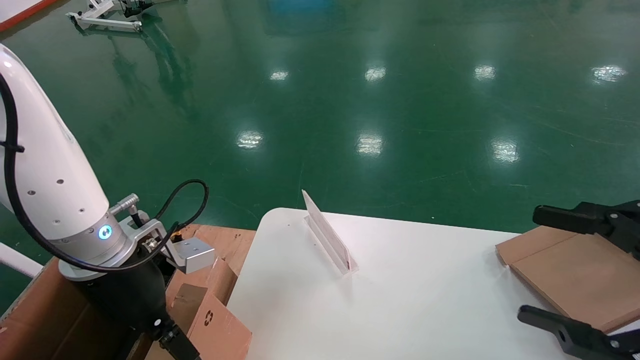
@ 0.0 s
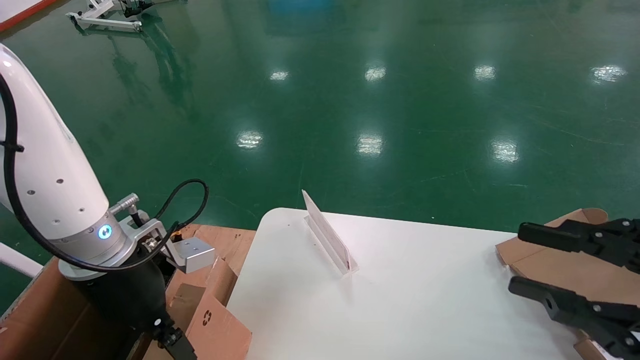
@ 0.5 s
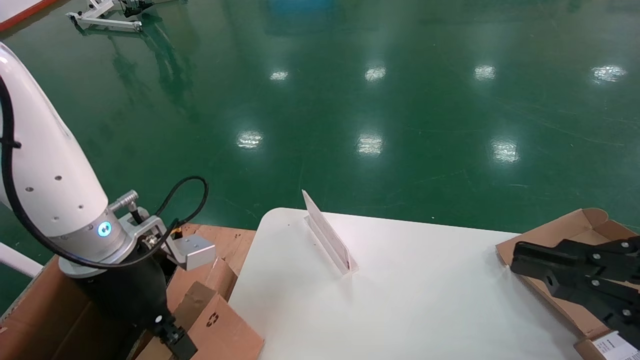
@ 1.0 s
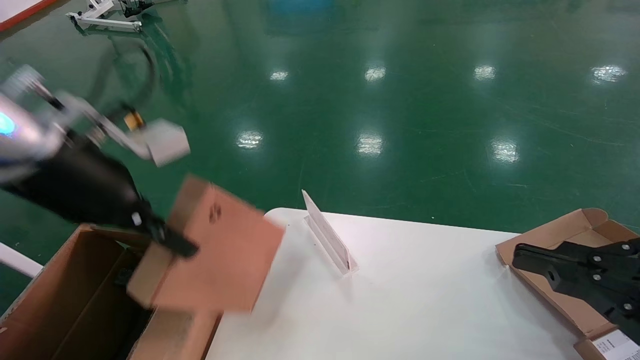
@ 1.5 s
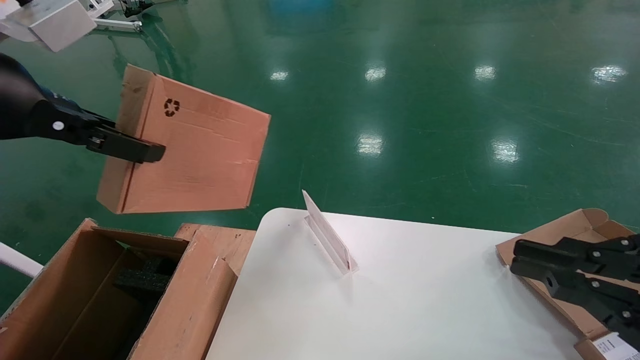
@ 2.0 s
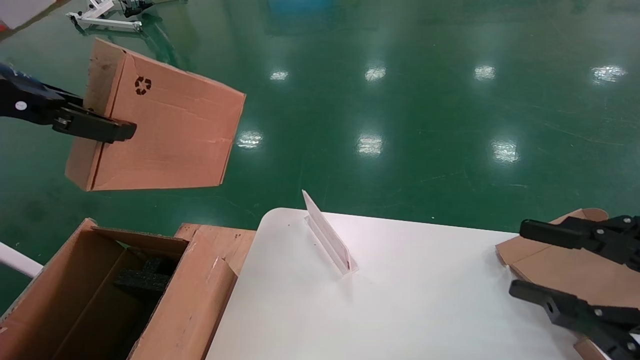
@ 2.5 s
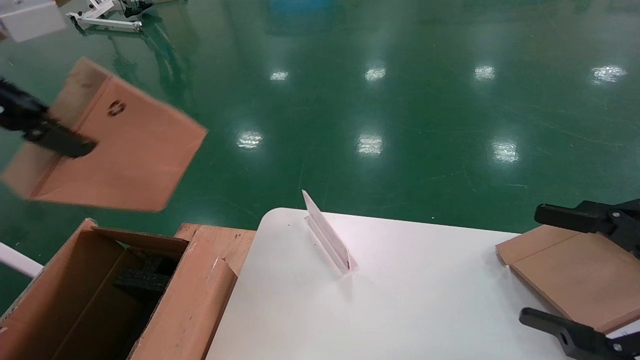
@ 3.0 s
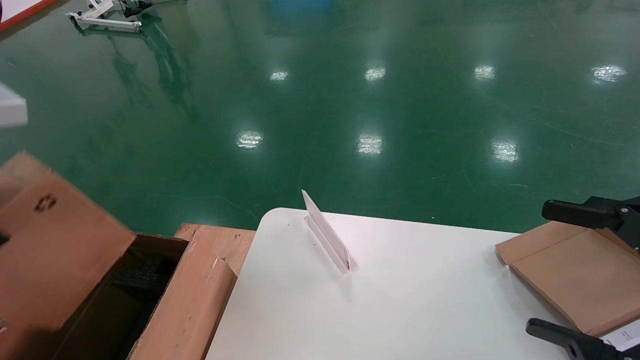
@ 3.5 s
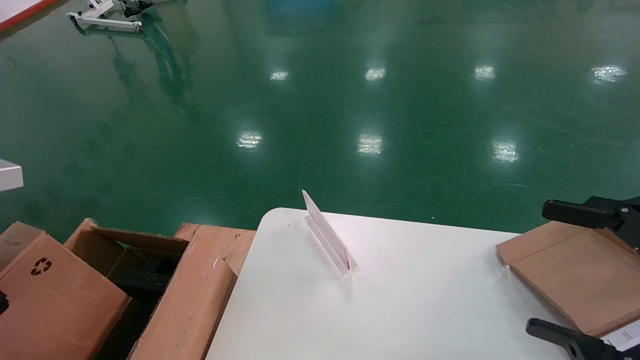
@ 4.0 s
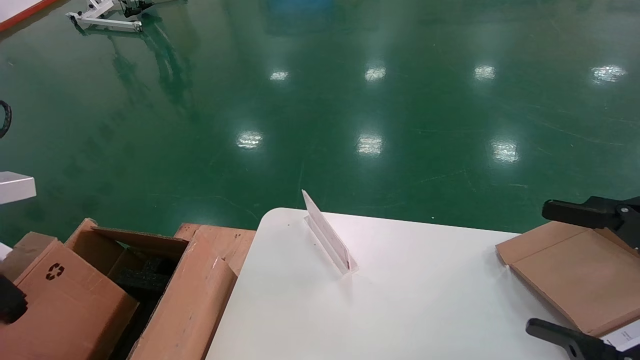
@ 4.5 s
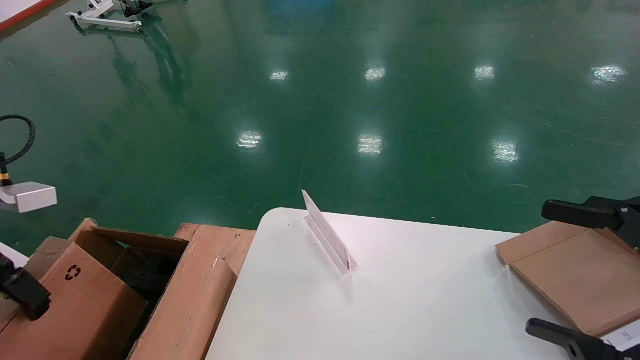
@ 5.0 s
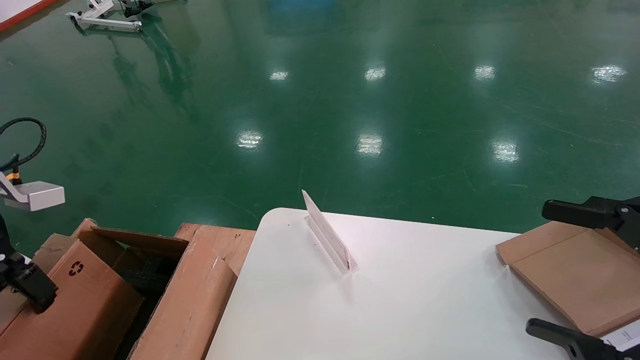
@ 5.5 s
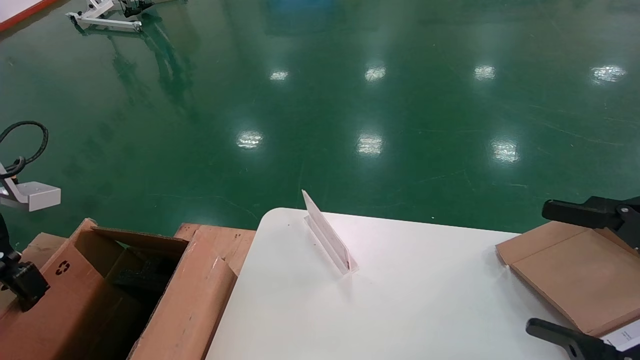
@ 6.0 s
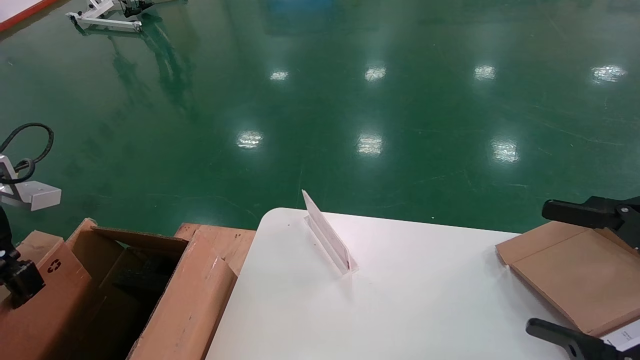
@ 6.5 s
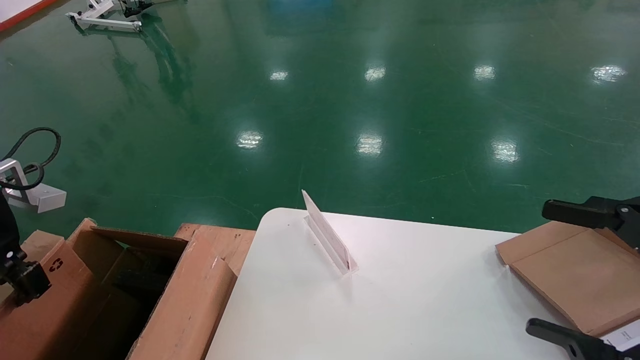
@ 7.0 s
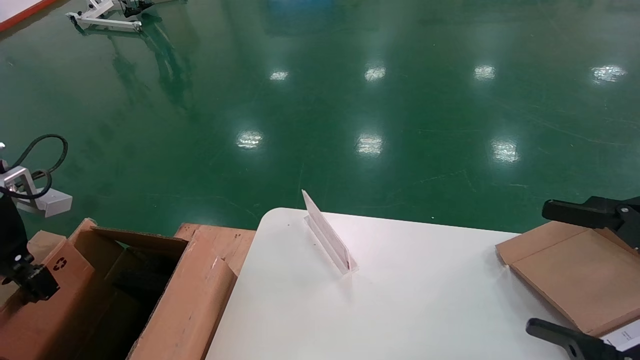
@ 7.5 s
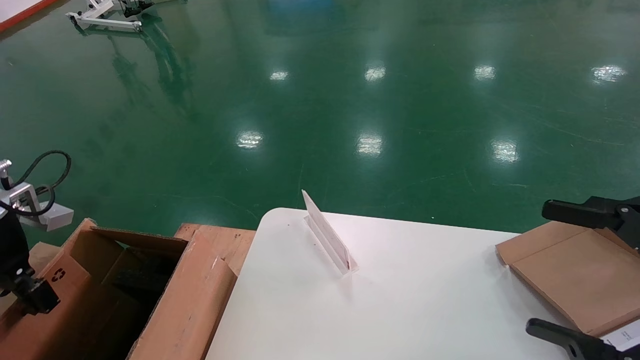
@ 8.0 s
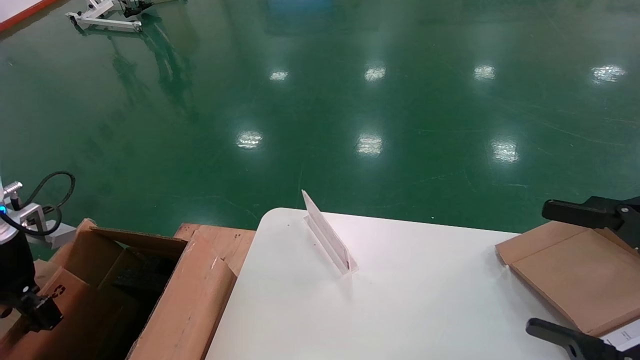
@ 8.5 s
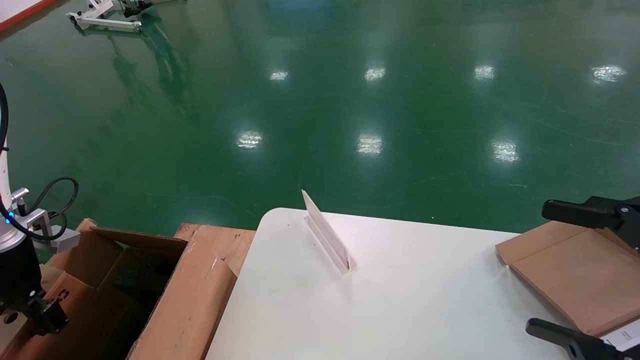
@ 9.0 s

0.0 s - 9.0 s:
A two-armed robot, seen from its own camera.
Task of the whole recording: pick up the small cardboard box and load it into the large cardboard box.
Step, 0.0 s - 4.5 s: Pick up the mouse and power cord box.
0.0 s - 2.0 s: The left gripper is displaced upward by about 20 cm, and closes its fingers, while the right gripper closes its fingers.
2.0 s - 4.5 s: The right gripper opens its fingers; the left gripper is displaced to the left and downward by some 15 cm.
4.5 s - 7.0 s: The left gripper moves forward and downward, roughly 10 cm.
7.0 s - 9.0 s: The left gripper moves downward, roughly 10 cm.

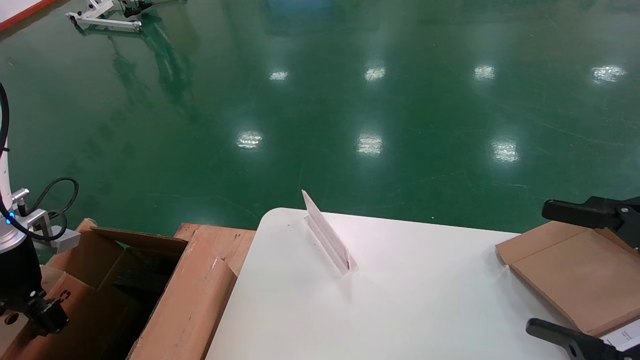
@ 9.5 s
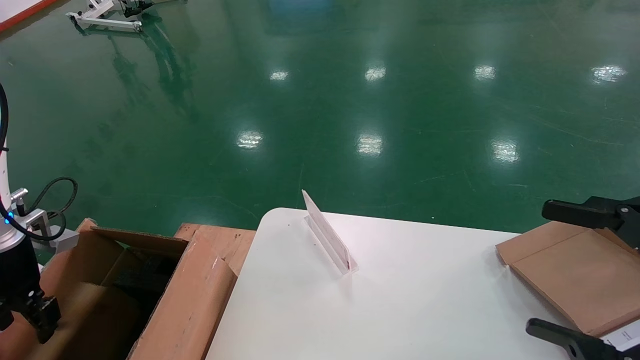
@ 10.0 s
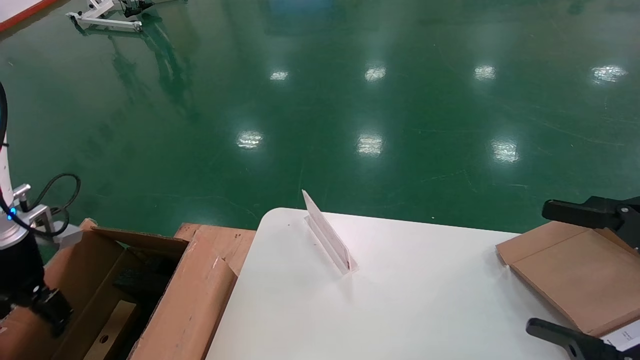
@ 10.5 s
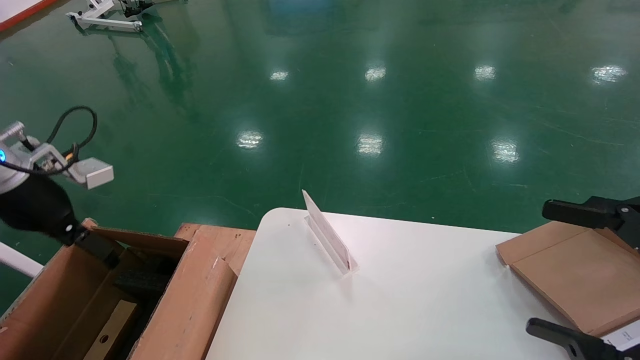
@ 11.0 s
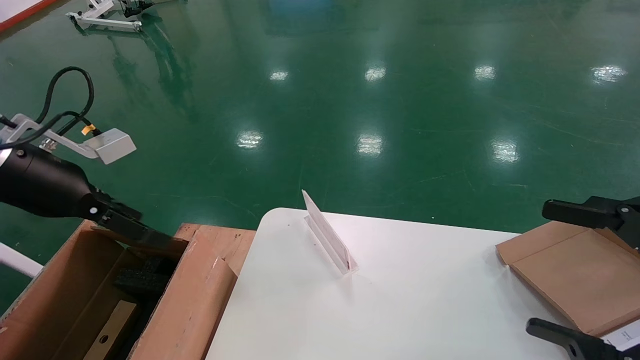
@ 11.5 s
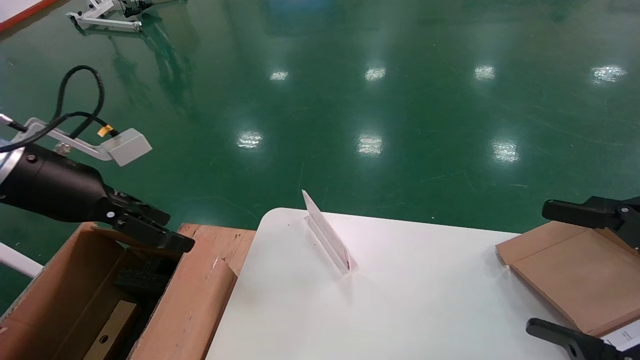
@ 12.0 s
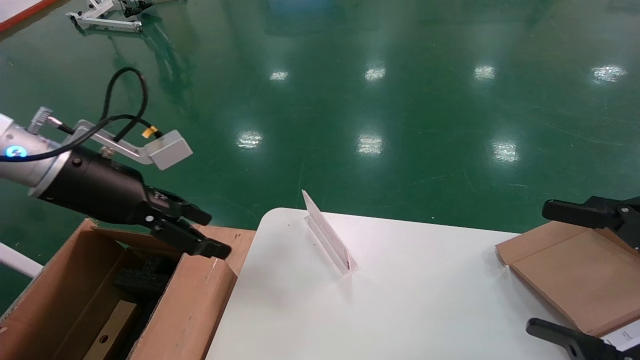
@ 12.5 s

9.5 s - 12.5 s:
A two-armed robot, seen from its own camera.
Task of the whole recording: pick up the small cardboard box and load it into the large cardboard box.
Step, 9.5 s - 12.5 s: Place the mouse and power cord box into the case.
9.5 s - 11.0 s: The left gripper moves upward, some 10 cm, and opens.
11.0 s - 12.5 s: The left gripper moves to the right, about 10 cm.

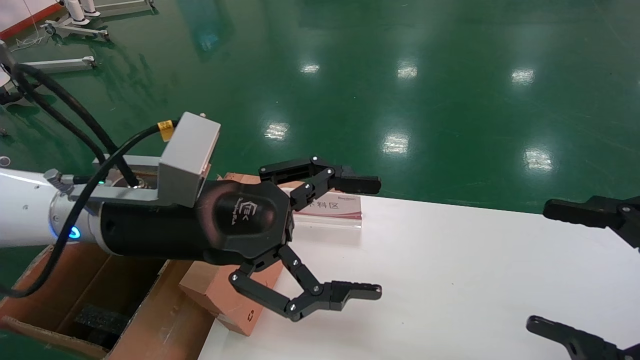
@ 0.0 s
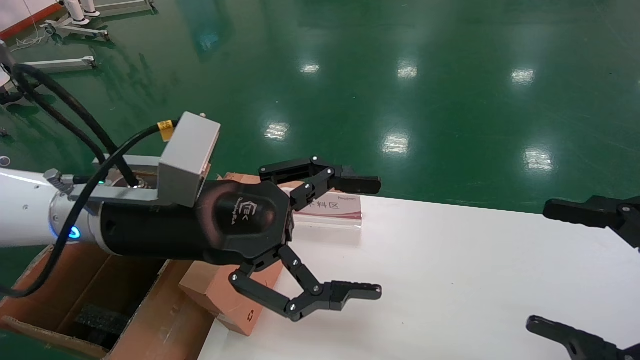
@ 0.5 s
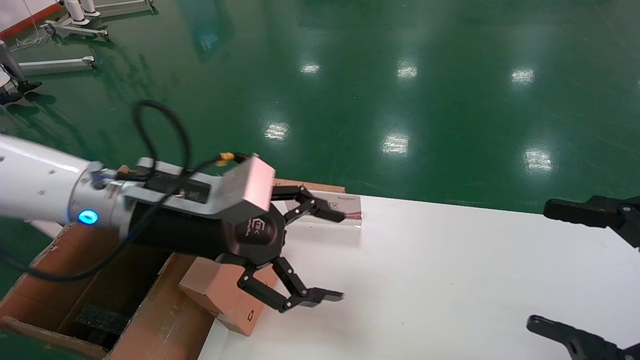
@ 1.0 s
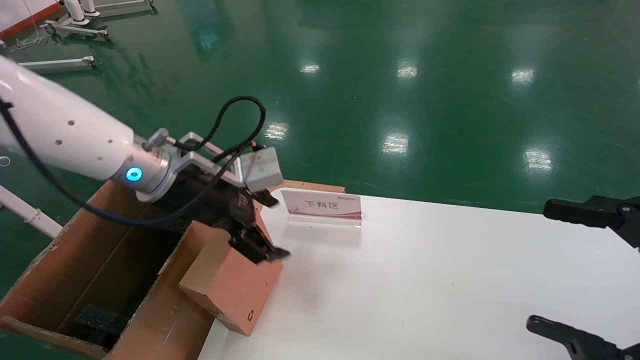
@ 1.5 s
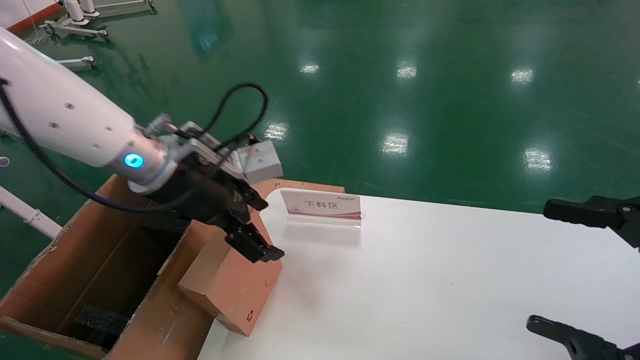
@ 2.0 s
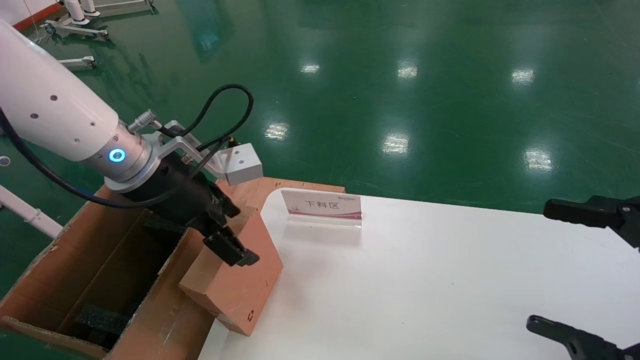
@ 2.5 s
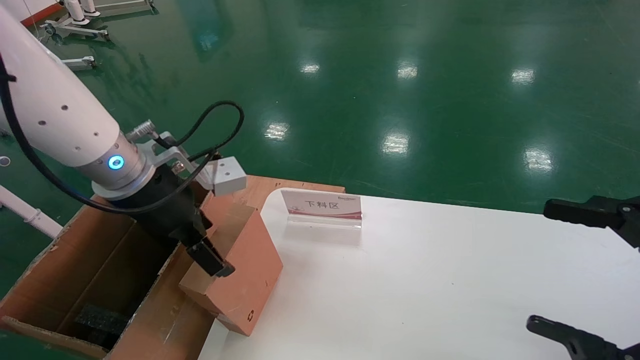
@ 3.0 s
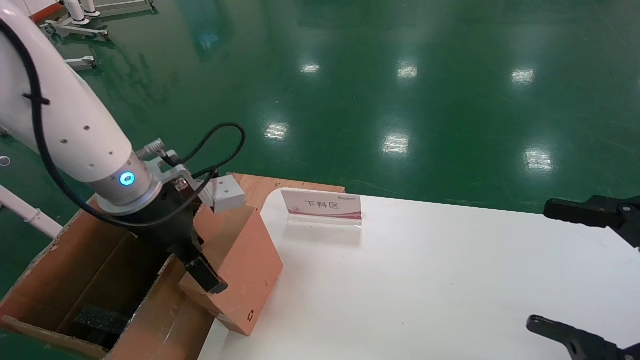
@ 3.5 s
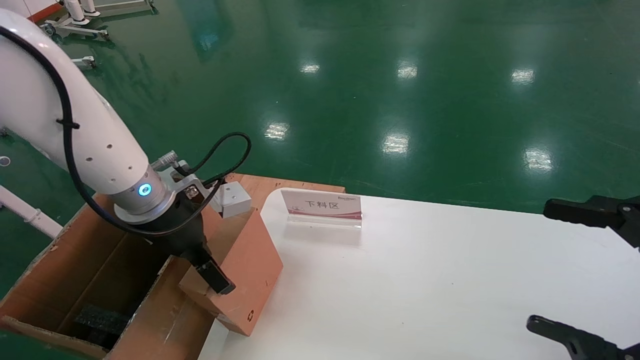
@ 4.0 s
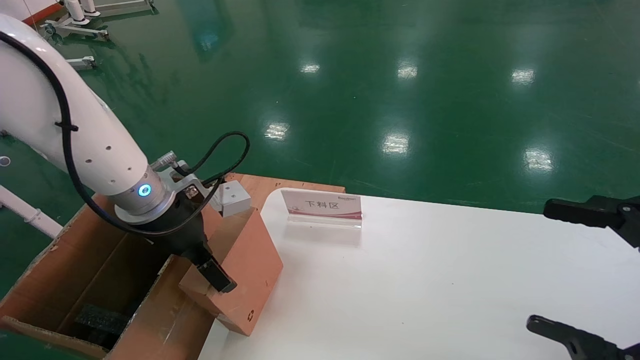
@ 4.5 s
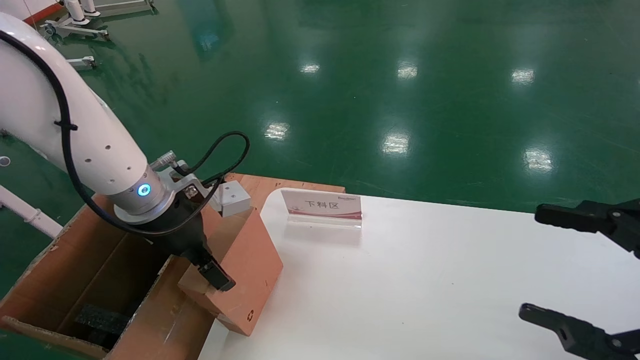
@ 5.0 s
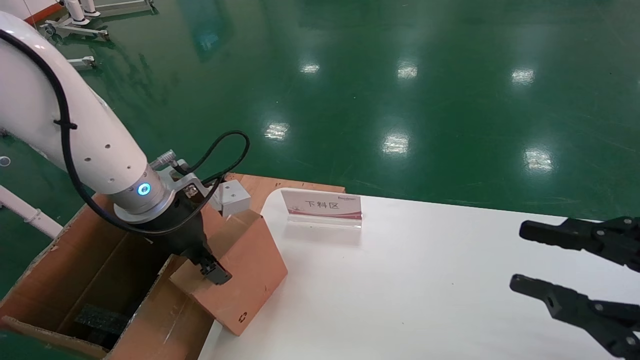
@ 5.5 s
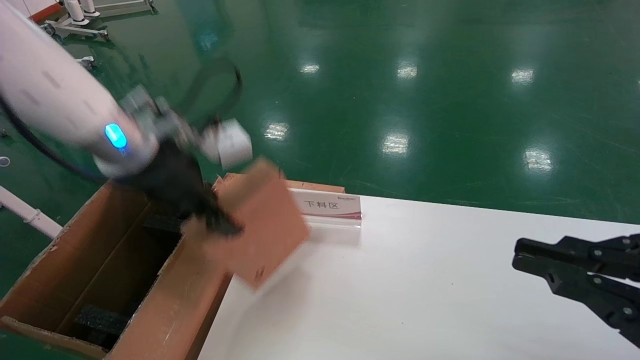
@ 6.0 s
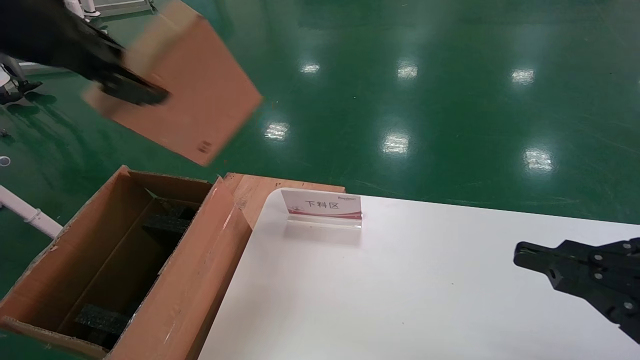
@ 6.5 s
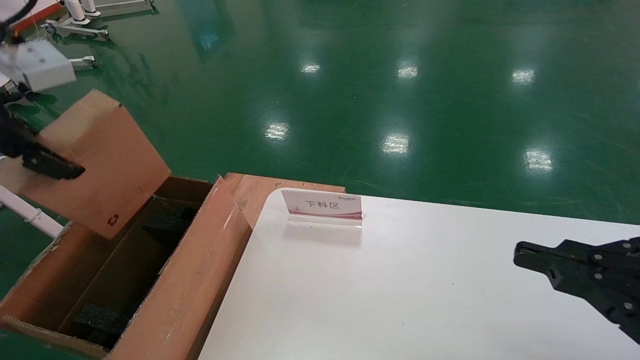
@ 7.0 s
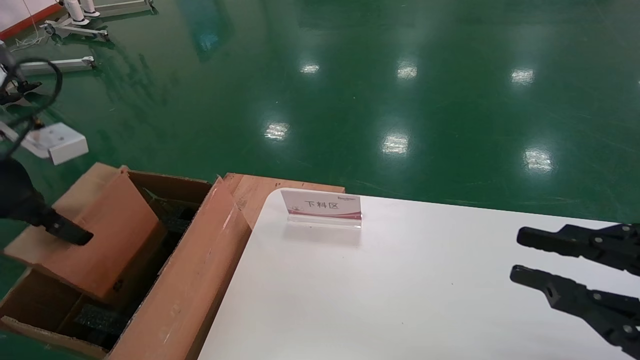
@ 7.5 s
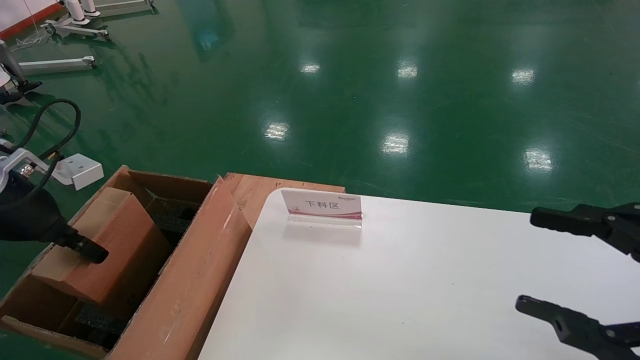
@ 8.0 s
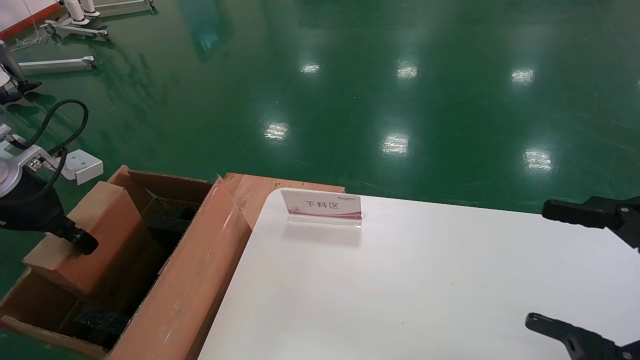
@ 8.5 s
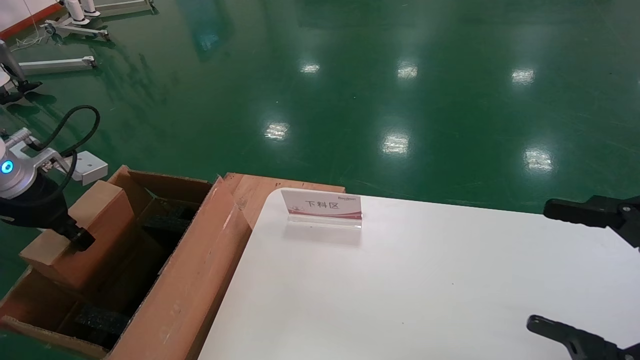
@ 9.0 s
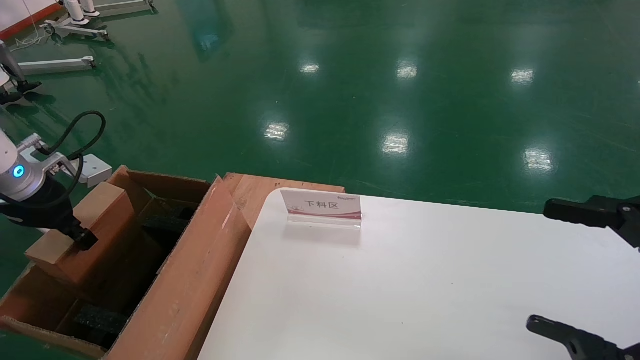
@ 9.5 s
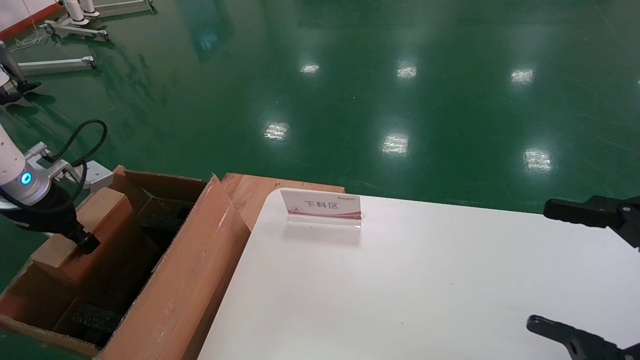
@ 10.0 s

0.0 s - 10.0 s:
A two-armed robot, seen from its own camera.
Task of the whole recording: pick up the small cardboard box and load it into the large cardboard box.
Step, 1.0 s - 5.5 s: Pick up the mouse and power cord box.
0.0 s - 2.0 s: The left gripper goes some 5 cm forward.
2.0 s - 4.0 s: The left gripper changes place by roughly 5 cm.
4.0 s - 6.0 s: The right gripper closes; the left gripper travels upward by roughly 10 cm, and closes up.
6.0 s - 8.0 s: The right gripper opens up; the left gripper moves to the left, about 15 cm, and reaches some 10 cm upward, then returns.
8.0 s - 10.0 s: The right gripper opens, while the left gripper goes some 5 cm forward.
